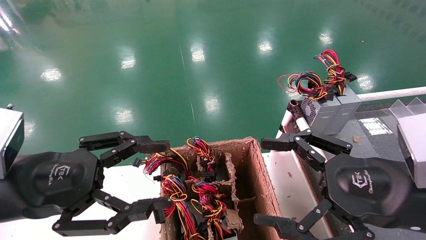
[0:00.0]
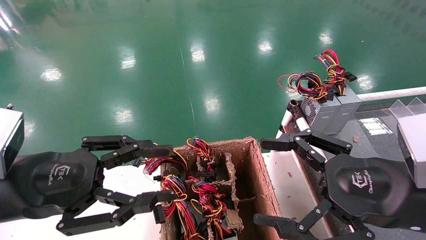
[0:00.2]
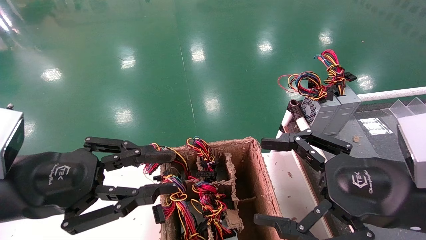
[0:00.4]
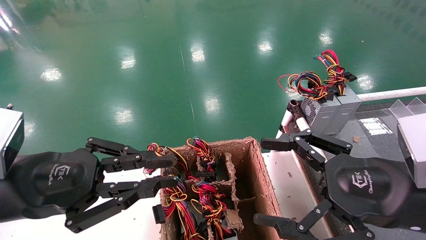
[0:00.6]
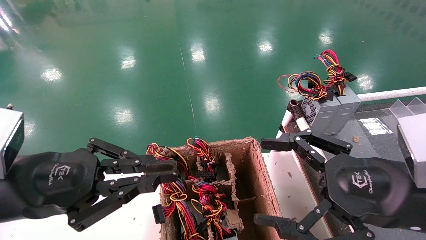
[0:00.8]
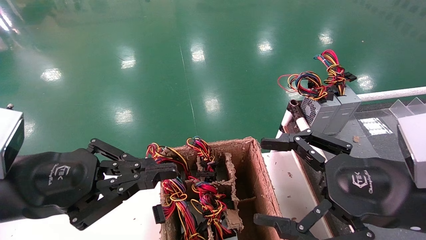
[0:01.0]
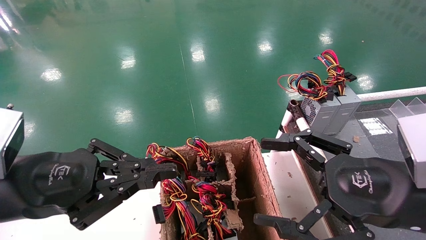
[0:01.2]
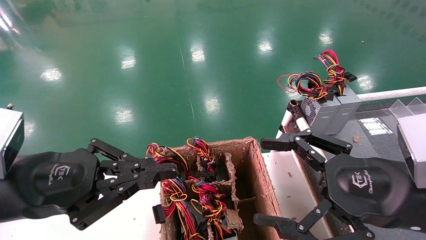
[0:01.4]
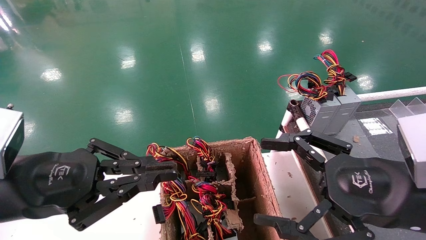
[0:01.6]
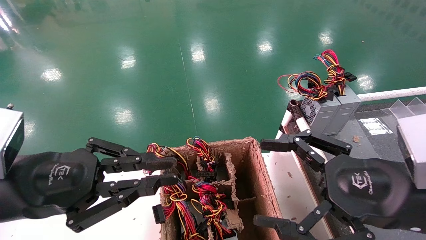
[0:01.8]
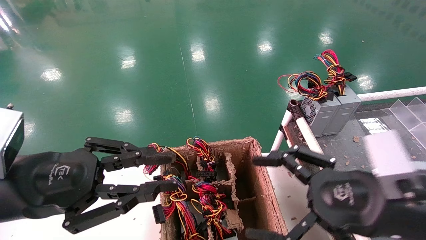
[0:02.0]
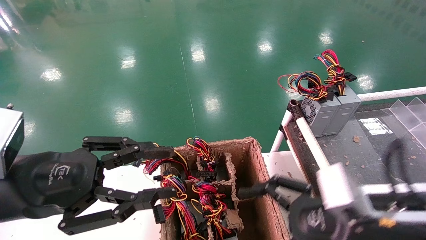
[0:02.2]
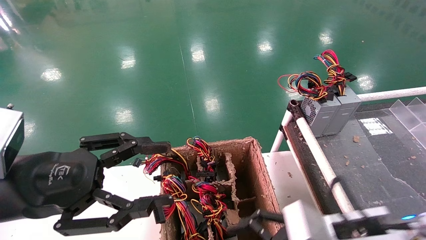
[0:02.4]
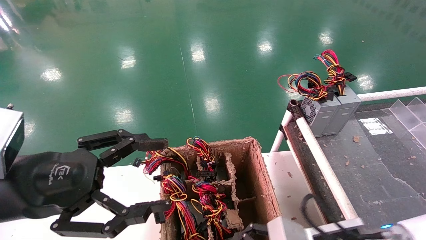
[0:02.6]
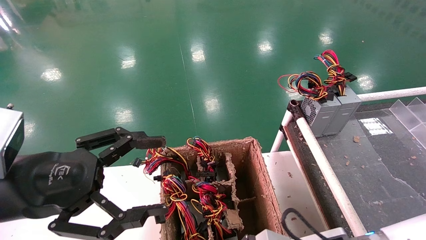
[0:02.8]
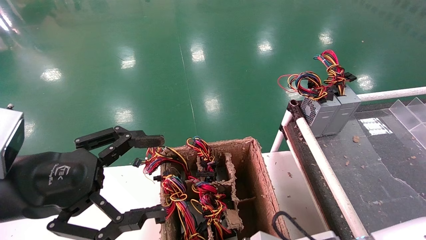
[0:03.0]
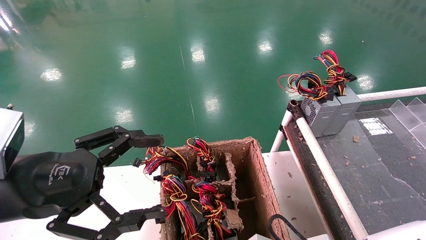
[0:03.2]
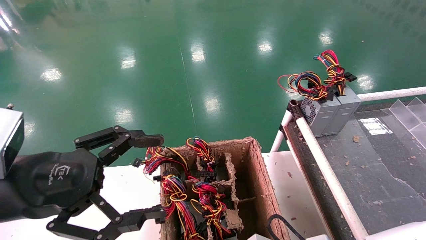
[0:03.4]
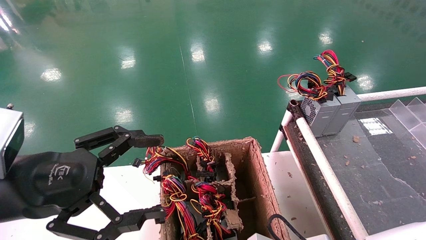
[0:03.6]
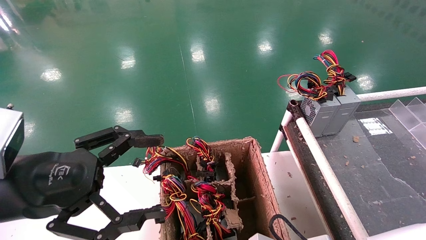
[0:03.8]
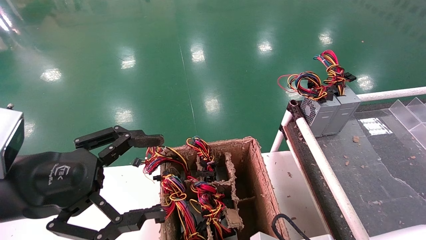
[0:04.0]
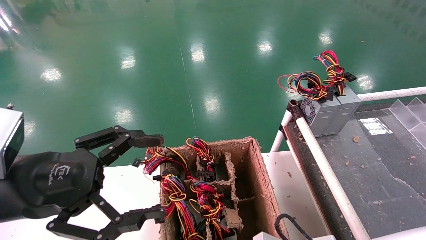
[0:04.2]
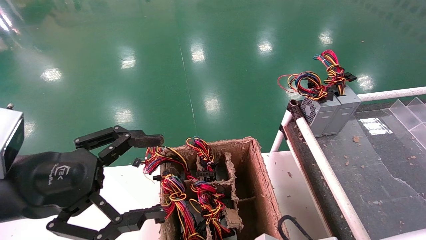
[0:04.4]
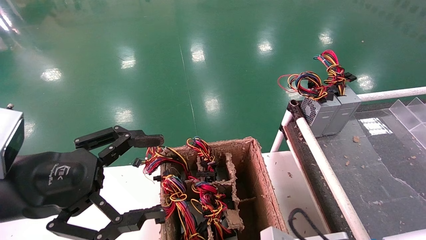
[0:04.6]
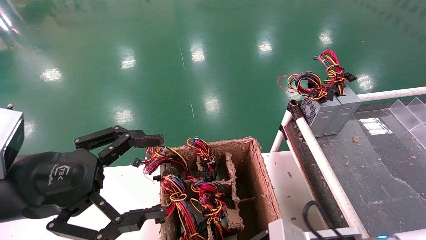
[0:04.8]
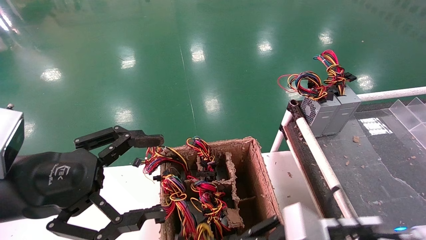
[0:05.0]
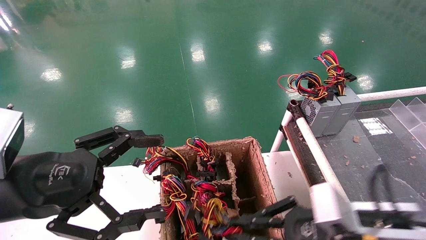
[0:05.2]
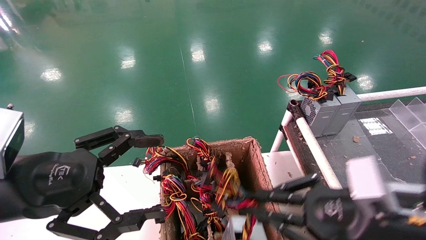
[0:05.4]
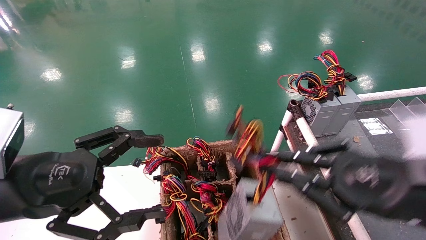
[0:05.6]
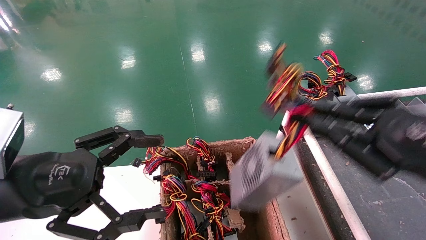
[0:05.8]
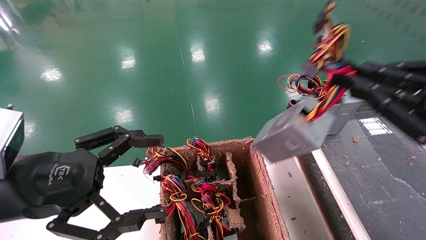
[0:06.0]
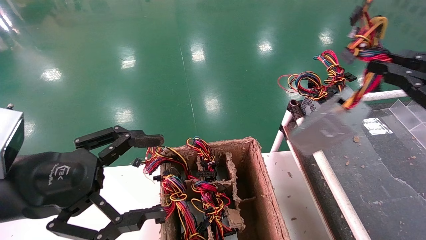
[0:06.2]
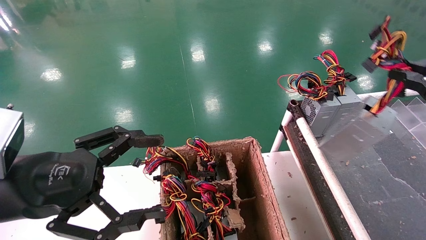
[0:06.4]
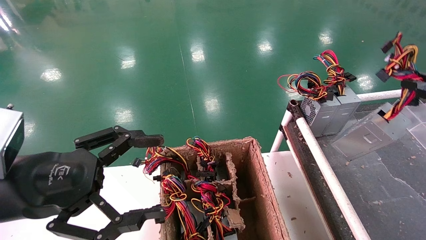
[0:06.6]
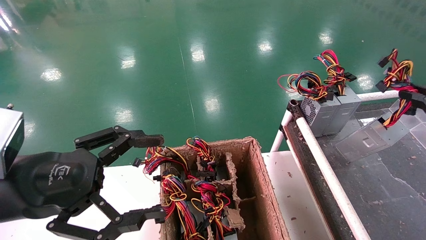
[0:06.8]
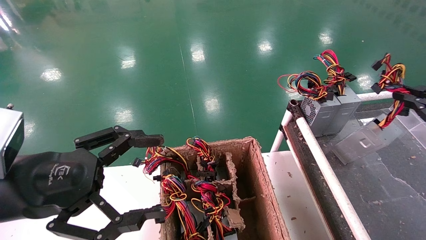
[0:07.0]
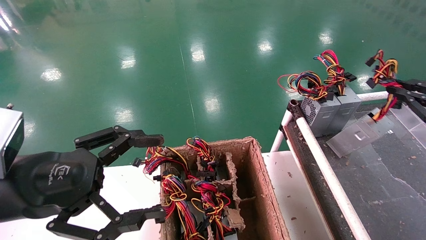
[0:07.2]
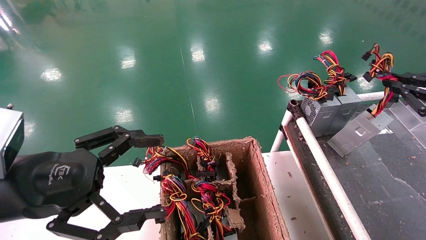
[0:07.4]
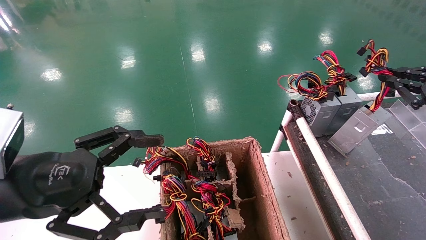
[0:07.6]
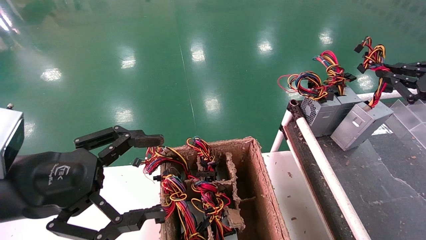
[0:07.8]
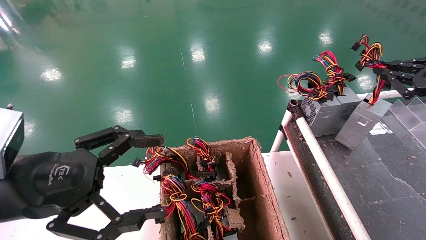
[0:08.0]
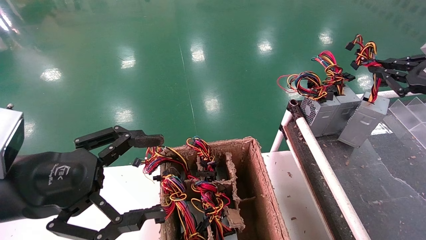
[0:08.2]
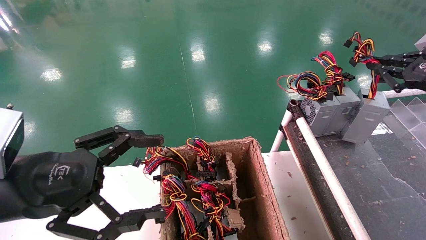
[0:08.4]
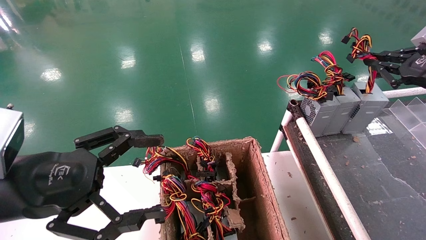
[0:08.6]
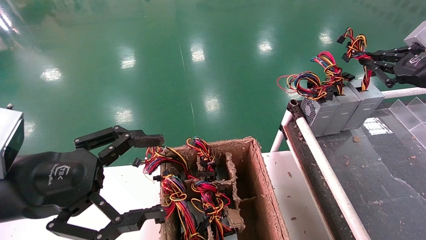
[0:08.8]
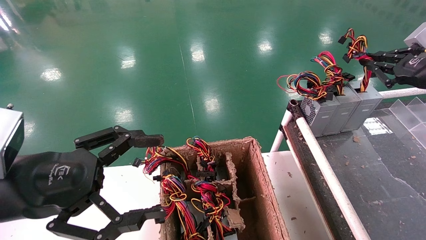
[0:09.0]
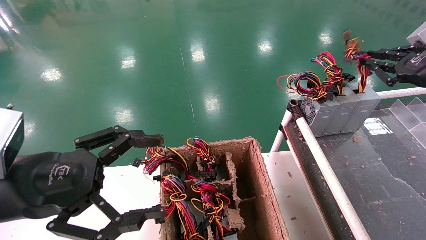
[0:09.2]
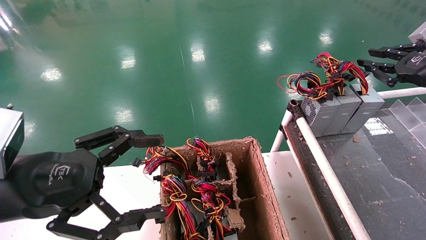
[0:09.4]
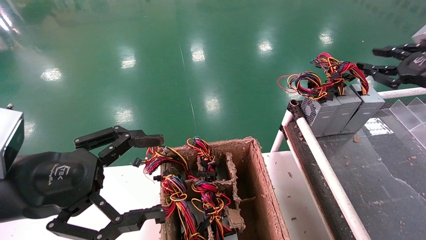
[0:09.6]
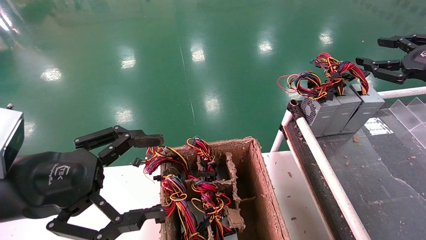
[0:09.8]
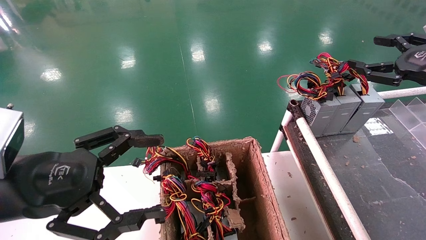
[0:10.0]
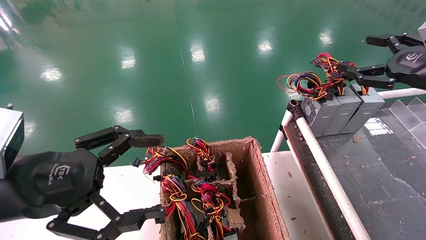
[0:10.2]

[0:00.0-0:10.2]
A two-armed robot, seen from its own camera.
Step, 2.2 to 4.2 s: Grab and lift the power supply from the large box.
Step, 4.4 to 9.4 s: Place the power supply on the operating table.
0.0 to 1.4 s: The left gripper closes its fingers.
1.4 to 3.0 s: The left gripper opens up, while the right gripper goes about 15 cm downward and to the left.
3.0 to 4.4 s: The right gripper closes its fingers.
4.4 to 5.8 s: The right gripper goes approximately 25 cm upward and to the right.
5.8 to 7.2 s: The right gripper is displaced to the right and forward by about 20 cm.
7.2 to 8.8 s: The right gripper is displaced forward and upward by approximately 10 cm.
8.8 to 10.2 s: The right gripper opens.

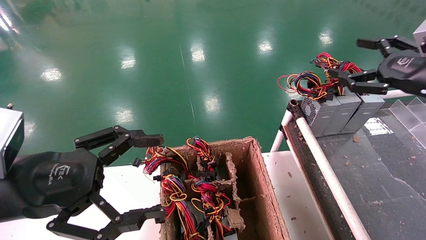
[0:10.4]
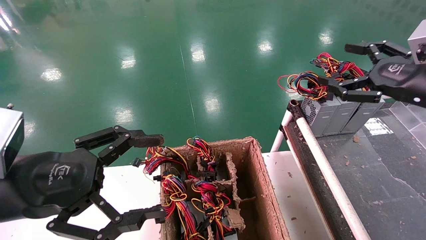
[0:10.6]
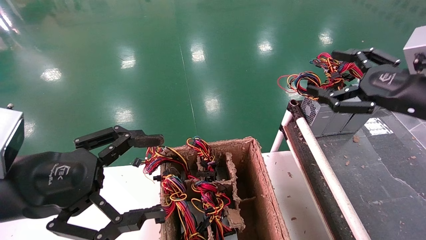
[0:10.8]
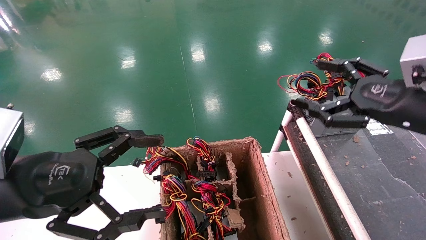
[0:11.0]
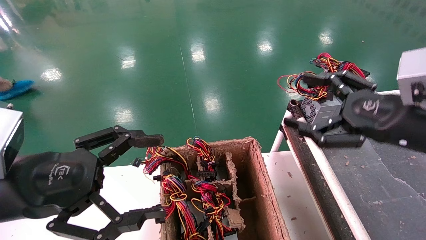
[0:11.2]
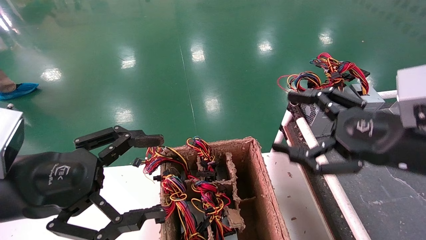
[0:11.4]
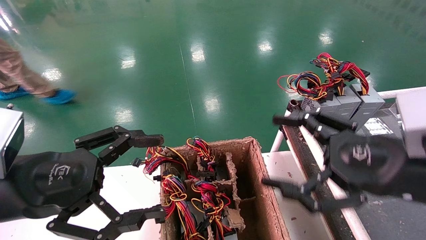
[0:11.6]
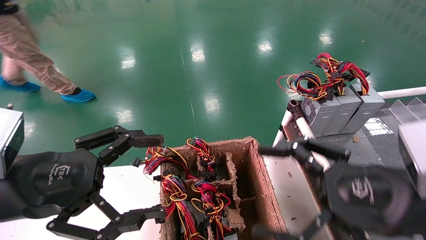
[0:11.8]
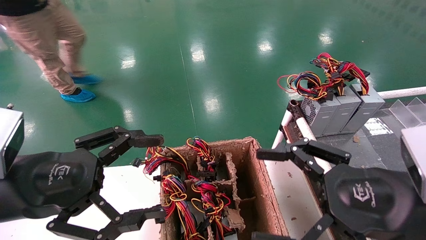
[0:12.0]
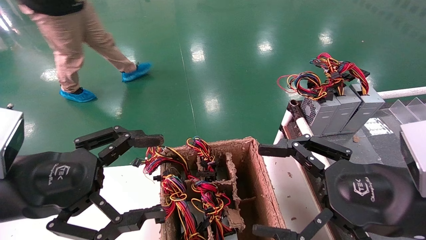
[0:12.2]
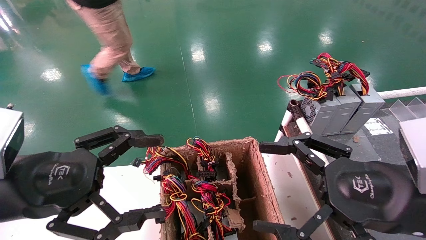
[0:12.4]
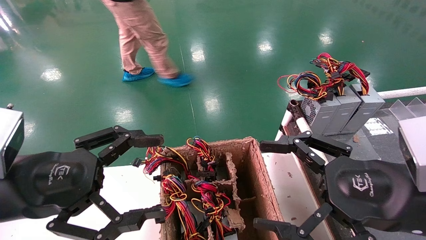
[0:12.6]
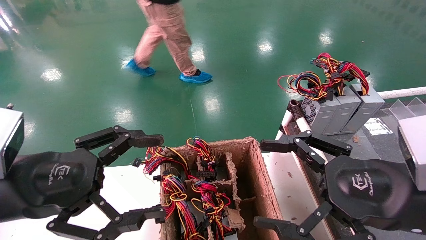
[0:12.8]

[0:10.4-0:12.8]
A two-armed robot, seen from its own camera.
10.4 to 11.6 s: The right gripper moves to the left, backward and downward, about 20 cm.
11.6 to 12.8 s: The grippers make only small movements.

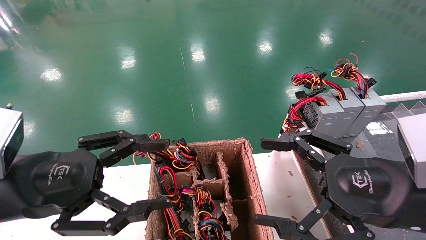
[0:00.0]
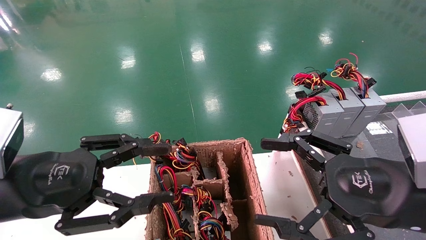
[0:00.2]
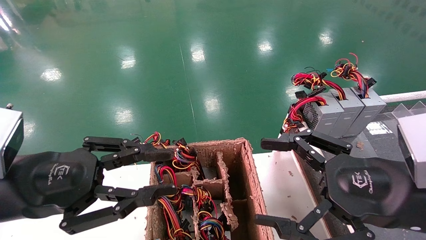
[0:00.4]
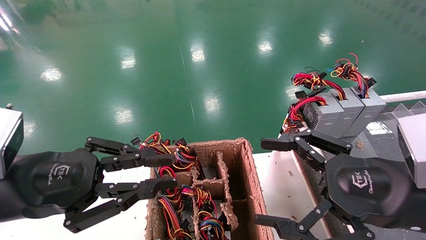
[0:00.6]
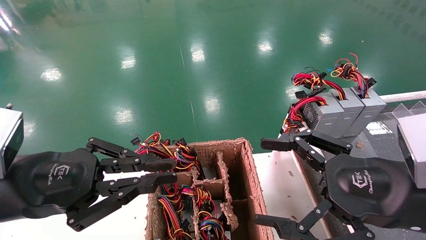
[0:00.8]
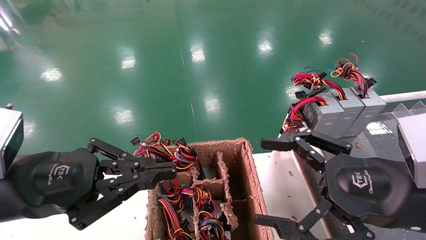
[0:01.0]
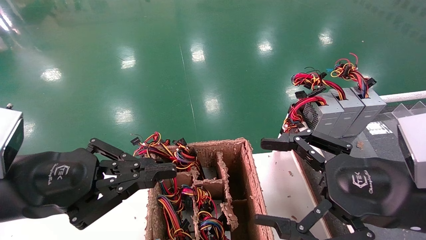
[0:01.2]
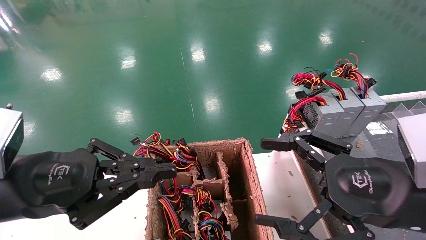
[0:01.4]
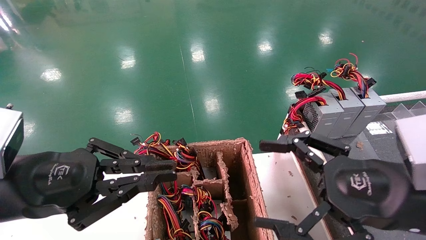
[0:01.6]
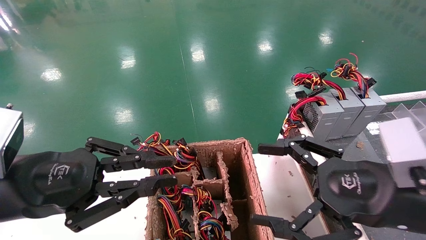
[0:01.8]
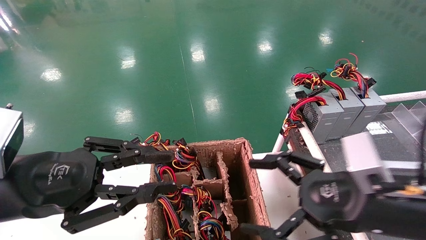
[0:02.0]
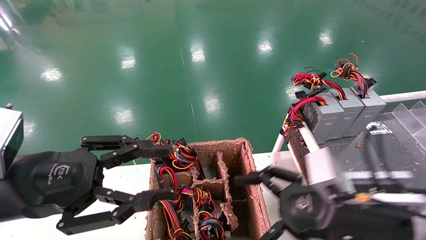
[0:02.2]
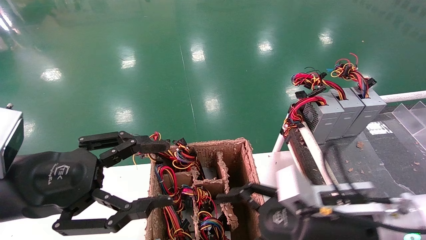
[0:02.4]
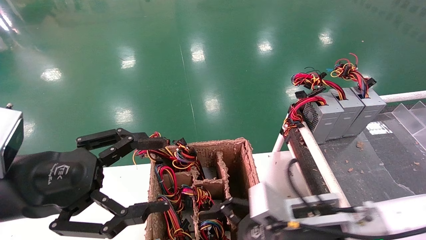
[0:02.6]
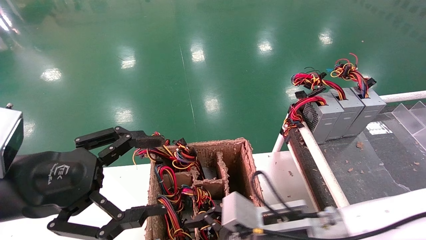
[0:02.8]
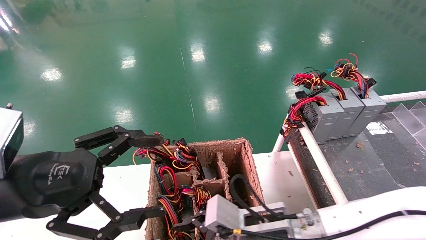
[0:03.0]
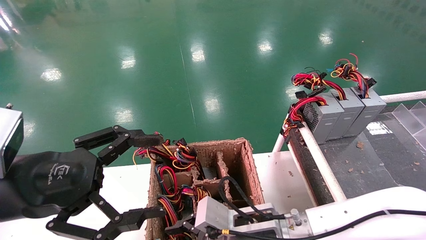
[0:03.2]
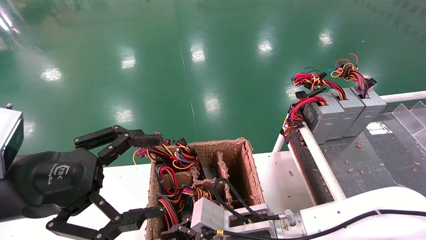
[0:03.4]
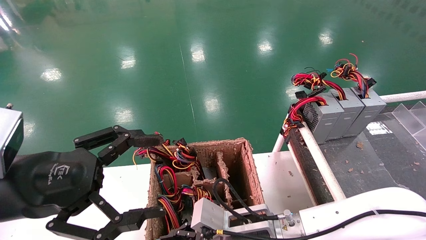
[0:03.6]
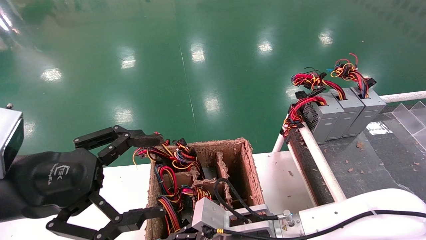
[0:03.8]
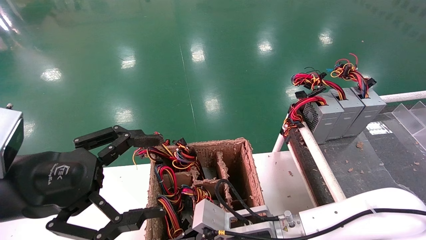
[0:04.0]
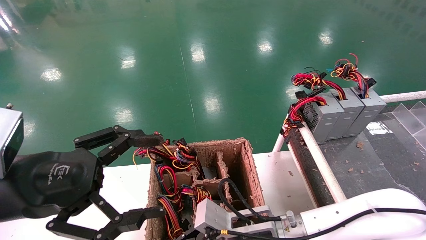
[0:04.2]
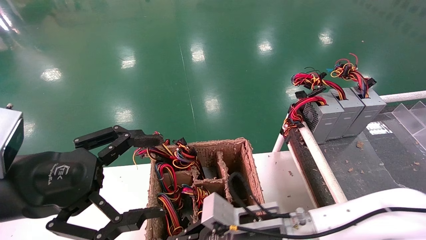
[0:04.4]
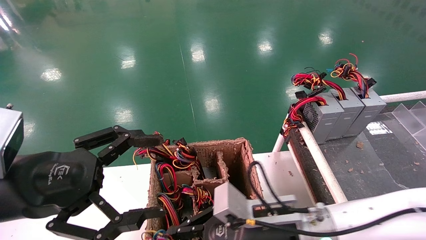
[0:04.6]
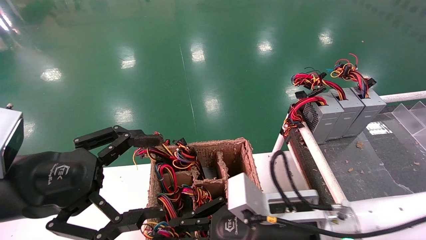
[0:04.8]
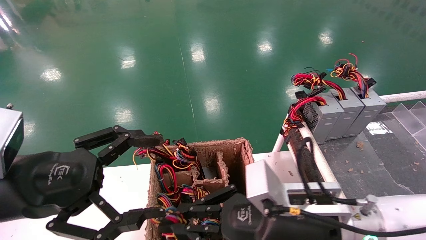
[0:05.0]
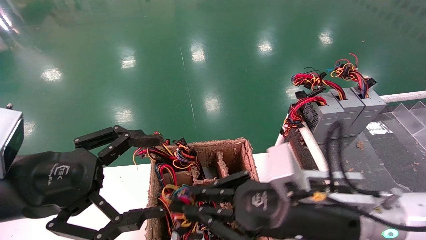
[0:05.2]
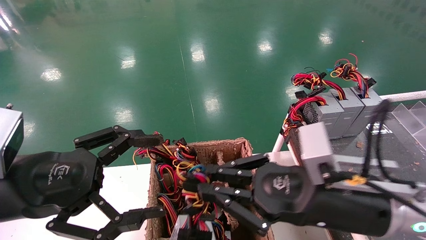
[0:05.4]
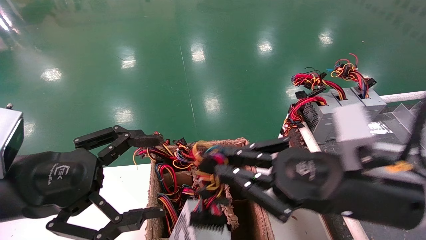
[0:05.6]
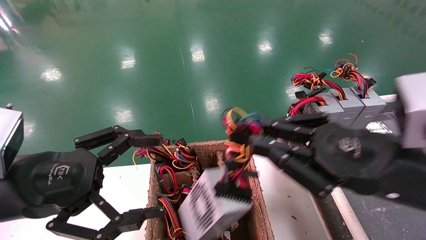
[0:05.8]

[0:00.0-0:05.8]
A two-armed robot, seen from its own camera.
Step, 2.0 to 4.0 s: Grab and lift the power supply from the large box.
0.0 to 1.4 s: The left gripper closes its fingers.
1.4 to 2.8 s: The left gripper opens up. The right gripper is displaced to the left, downward and forward by approximately 20 cm.
2.8 to 4.4 s: The right gripper closes its fingers.
4.4 to 5.8 s: The right gripper shifts roughly 25 cm upward, to the right and backward.
